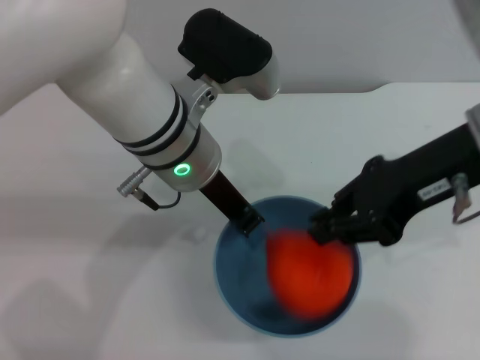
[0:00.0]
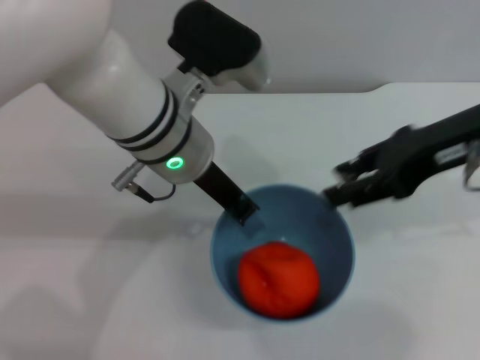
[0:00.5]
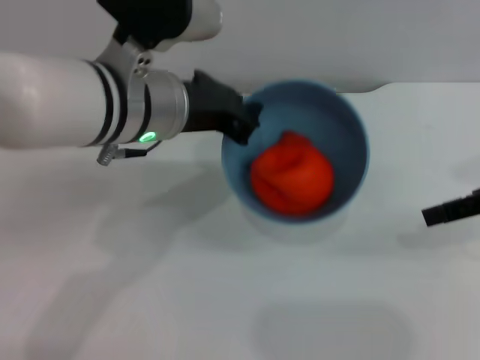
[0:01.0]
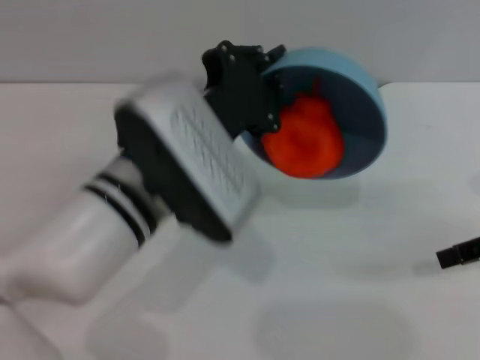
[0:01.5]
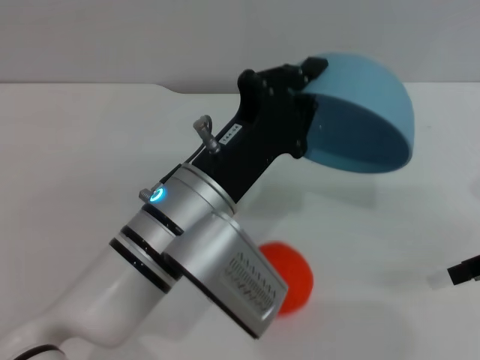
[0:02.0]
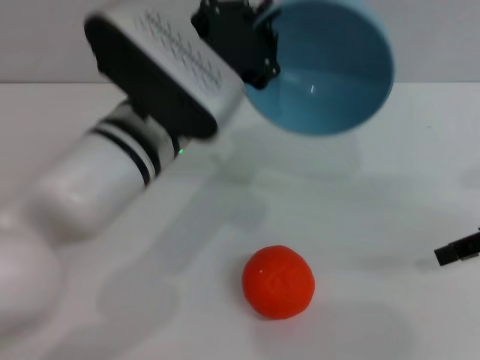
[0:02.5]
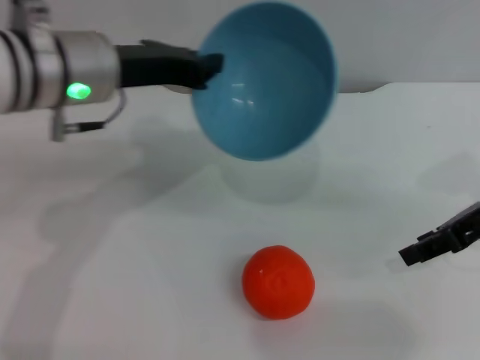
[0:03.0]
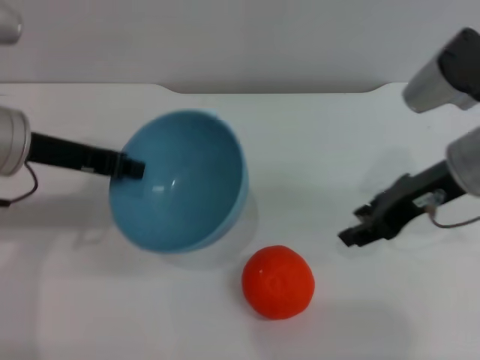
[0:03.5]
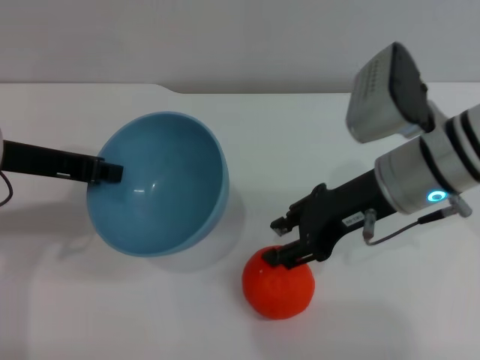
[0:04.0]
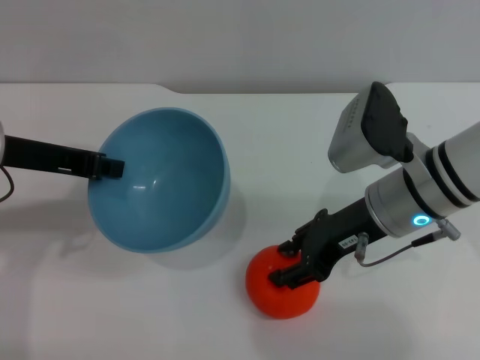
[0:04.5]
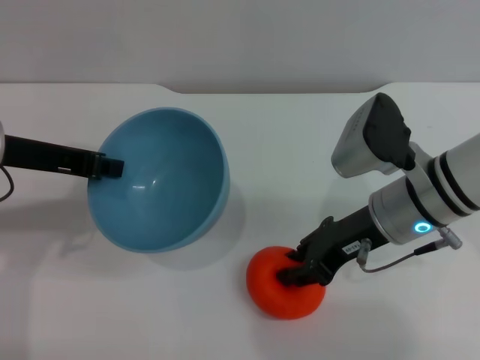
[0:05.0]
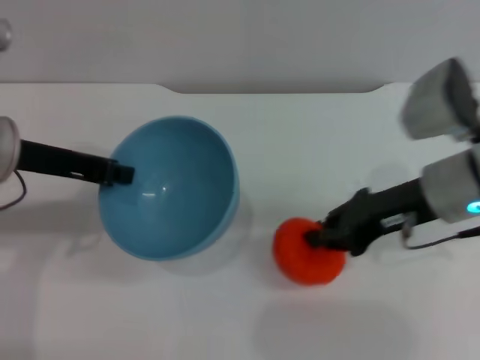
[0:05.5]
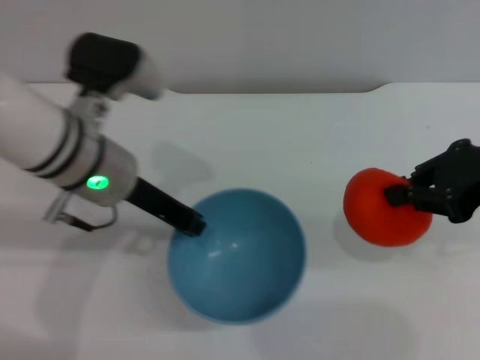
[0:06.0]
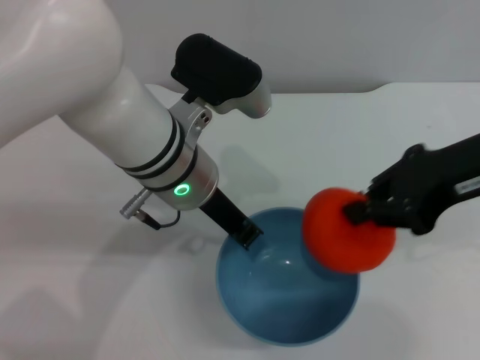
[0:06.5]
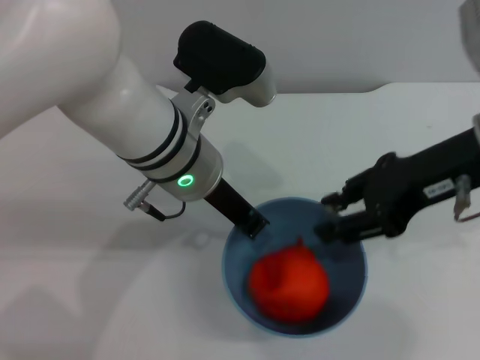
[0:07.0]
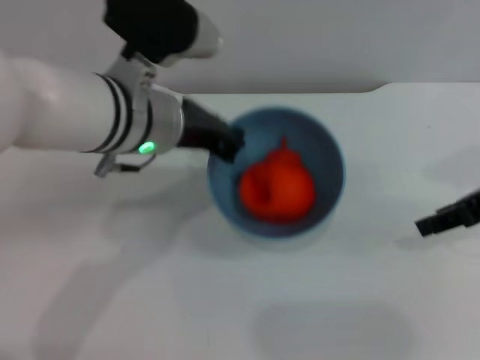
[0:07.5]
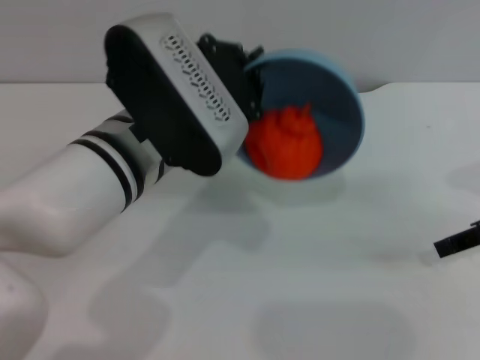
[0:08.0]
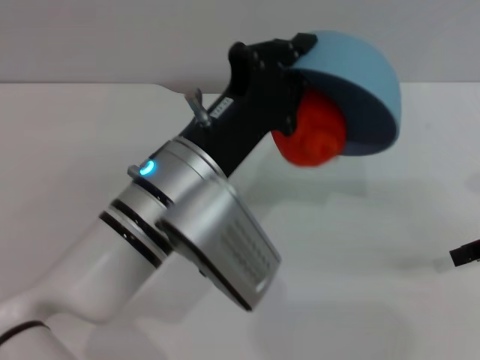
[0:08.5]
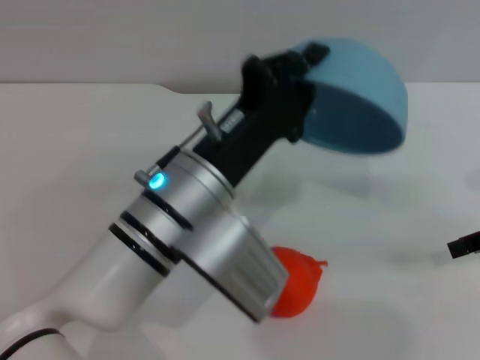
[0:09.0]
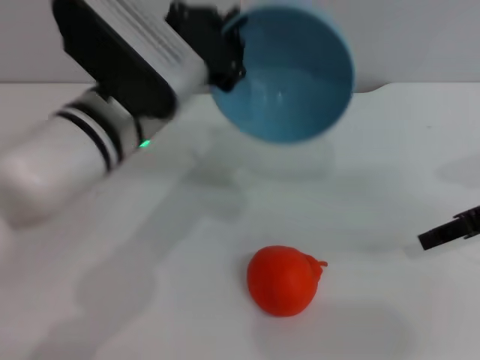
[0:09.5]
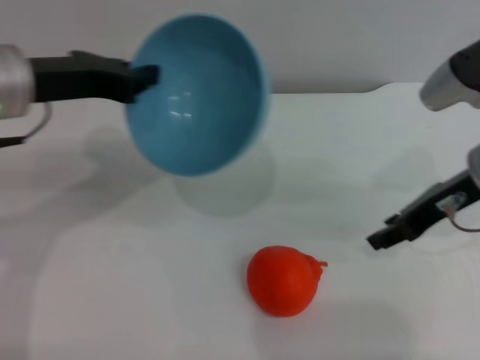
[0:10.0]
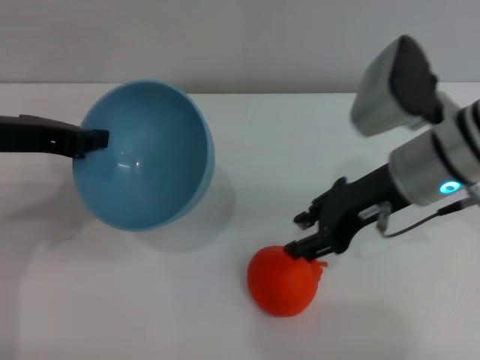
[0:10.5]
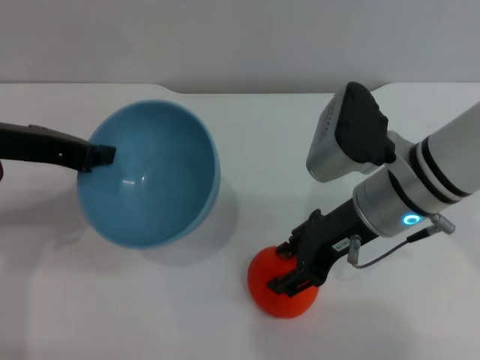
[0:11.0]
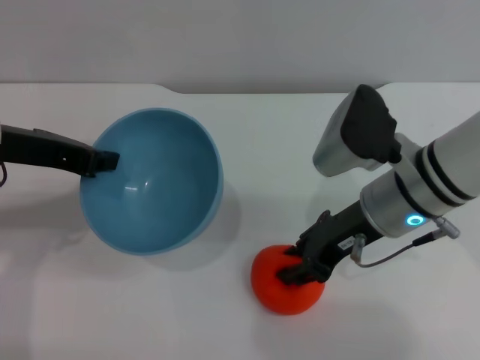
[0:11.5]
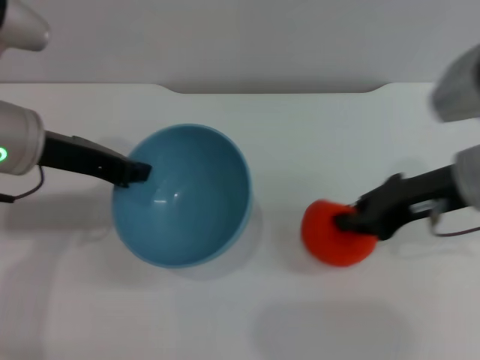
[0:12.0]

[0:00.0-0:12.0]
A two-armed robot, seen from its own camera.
Task of the whole recording: put the orange into the blue bowl and pour it out repeatedly.
Step, 0:01.0 to 0:02.0: Pour the orange out of the bowl.
Step, 0:02.5 to 0:05.5: Pick up the orange with the right gripper.
Step, 0:06.0 to 0:06.5: Place the orange into the bowl.
Step, 0:07.0 to 0:08.5: Pour the orange out of the bowl.
Step, 0:09.5 to 0:11.5: Pick up the orange with the right gripper.
0:00.0 to 0:02.0: The left gripper goes approximately 10 cm backward and downward; the right gripper goes roughly 15 cm to the right and downward, and opens its fingers.
0:02.0 to 0:04.0: The right gripper is displaced to the left by about 15 cm, while the left gripper goes about 20 cm to the left and upward.
0:04.0 to 0:06.0: The left gripper goes about 10 cm to the right, while the right gripper moves to the right and upward, about 15 cm, and closes its fingers.
0:06.0 to 0:08.0: The left gripper moves to the right, roughly 5 cm, while the right gripper travels downward by some 5 cm, and opens.
0:08.0 to 0:10.0: The left gripper shifts approximately 15 cm to the left. Meanwhile the right gripper shifts about 10 cm to the left.
0:10.0 to 0:12.0: The right gripper goes to the left and returns, approximately 10 cm each way, and closes its fingers.

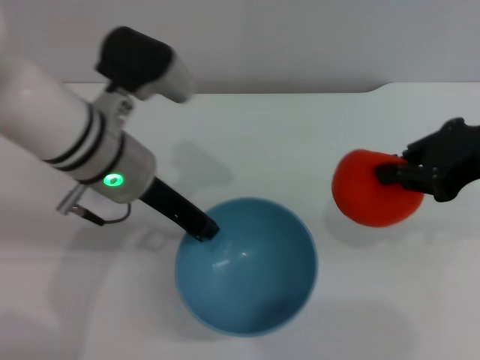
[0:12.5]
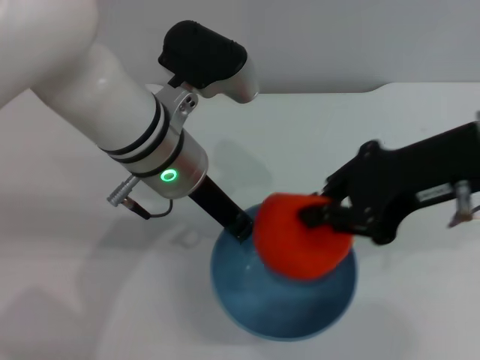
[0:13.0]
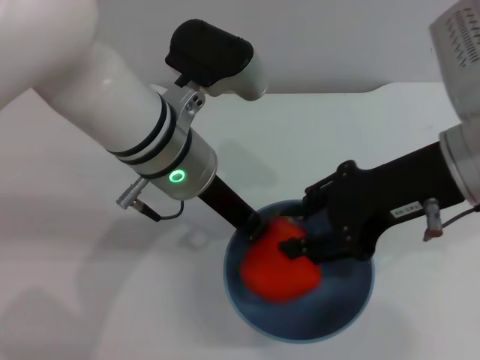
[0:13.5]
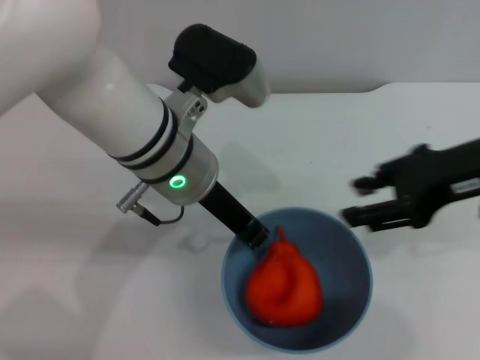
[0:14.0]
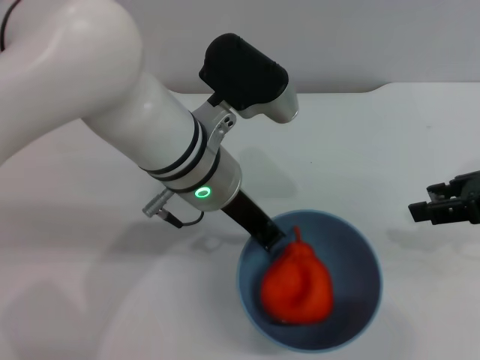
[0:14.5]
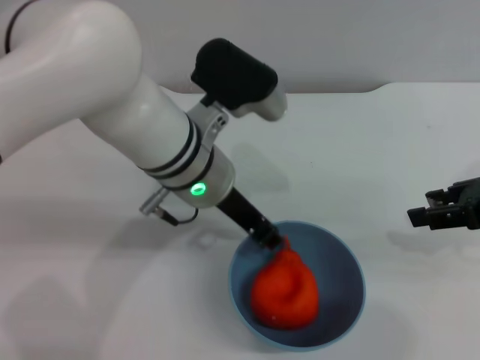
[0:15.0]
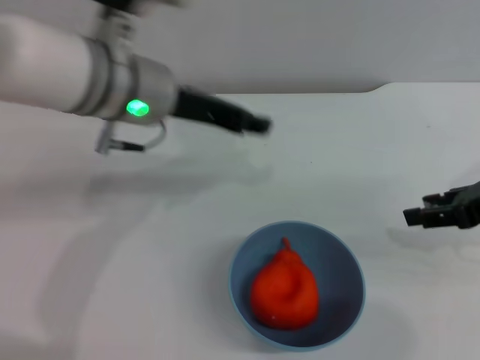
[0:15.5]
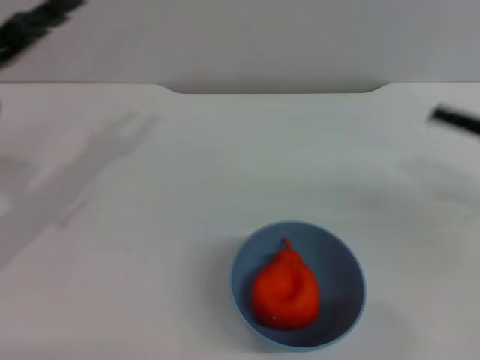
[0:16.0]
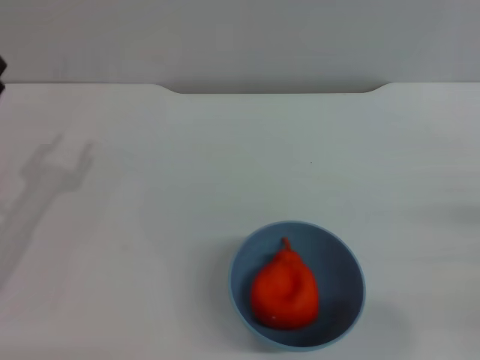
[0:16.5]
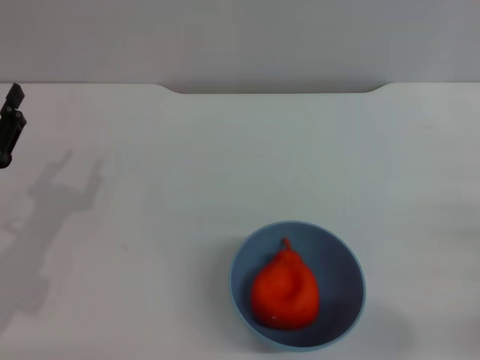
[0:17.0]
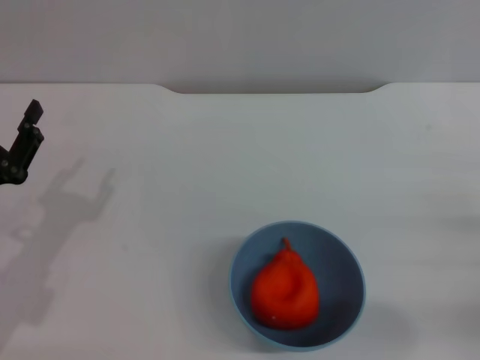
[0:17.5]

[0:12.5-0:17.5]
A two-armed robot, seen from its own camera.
Task of the whole recording: put the orange into the blue bowl and pour it out repeatedly.
Step, 0:12.5 to 0:13.5: Place the orange into the bowl.
Step, 0:14.0 to 0:15.0: Place the bowl on the table.
0:12.5 to 0:15.0: The left gripper moves to the right, about 5 cm. The right gripper ends up roughly 5 cm from where it was, and opens up.
0:15.0 to 0:17.5: The right gripper is displaced downward and backward by approximately 15 cm. Meanwhile the left gripper is displaced to the left and backward by roughly 25 cm, and opens up.
